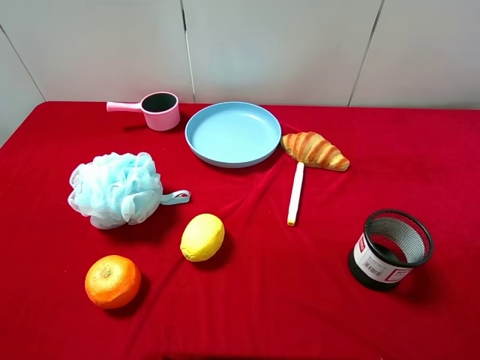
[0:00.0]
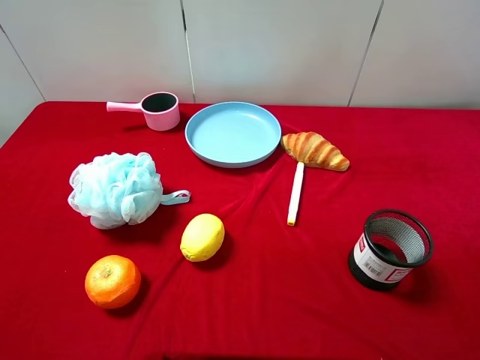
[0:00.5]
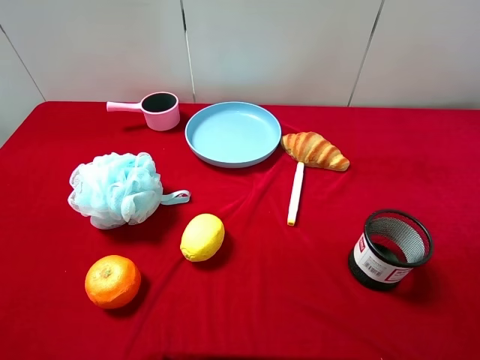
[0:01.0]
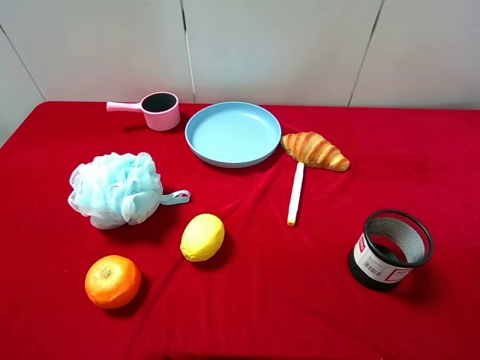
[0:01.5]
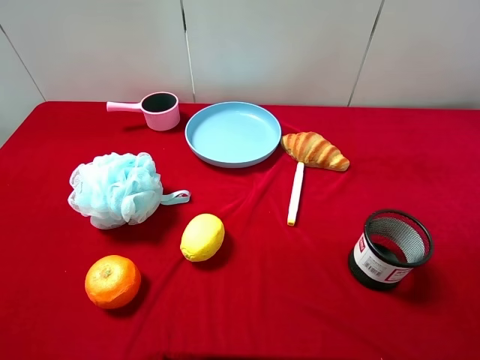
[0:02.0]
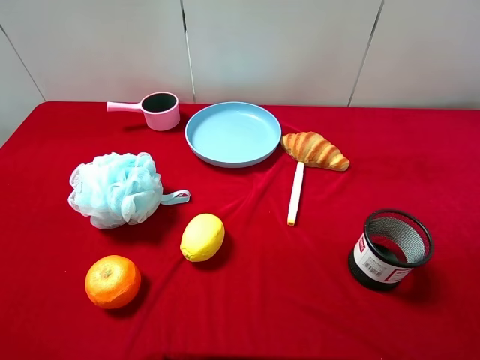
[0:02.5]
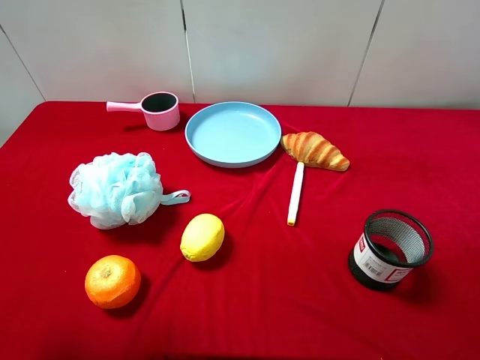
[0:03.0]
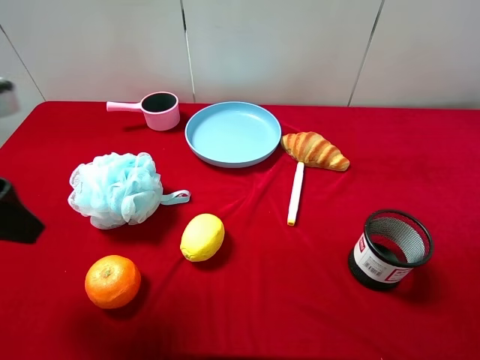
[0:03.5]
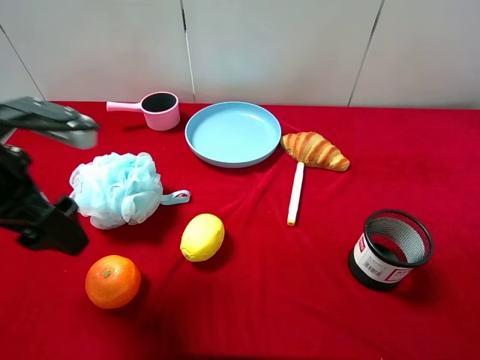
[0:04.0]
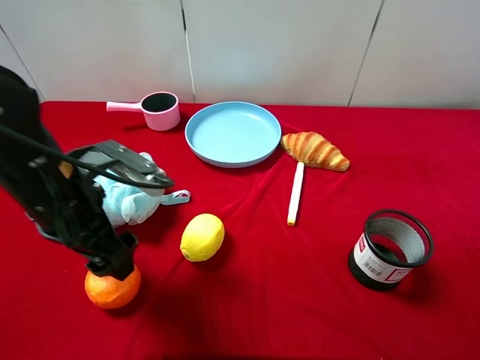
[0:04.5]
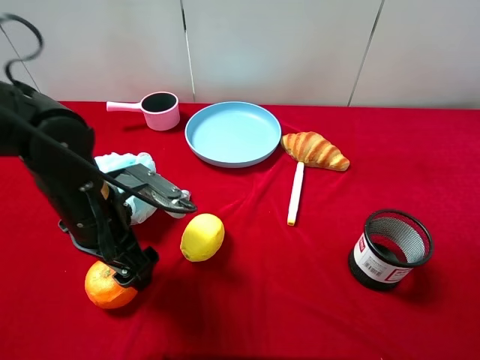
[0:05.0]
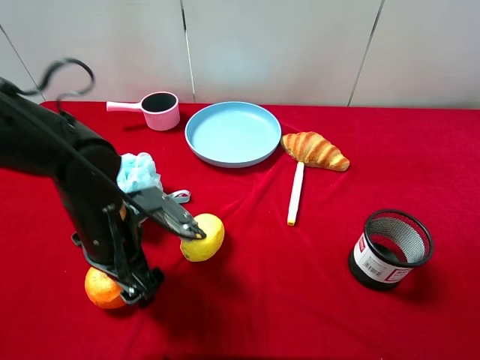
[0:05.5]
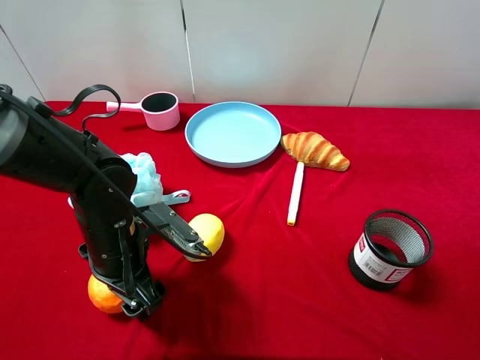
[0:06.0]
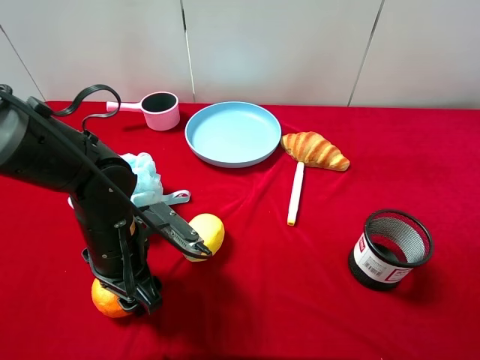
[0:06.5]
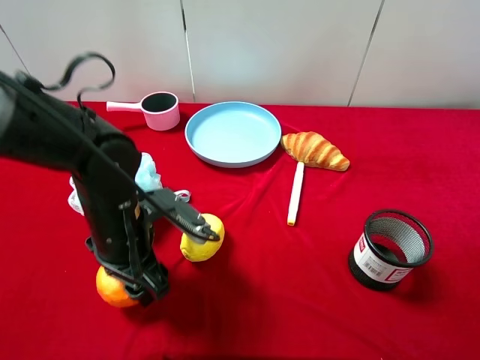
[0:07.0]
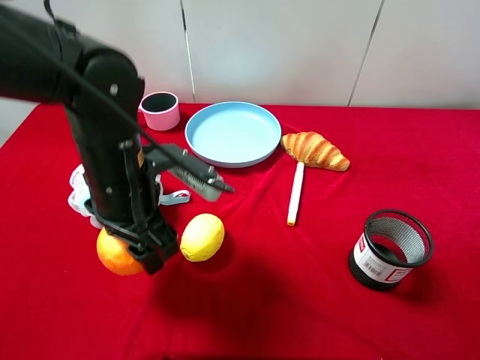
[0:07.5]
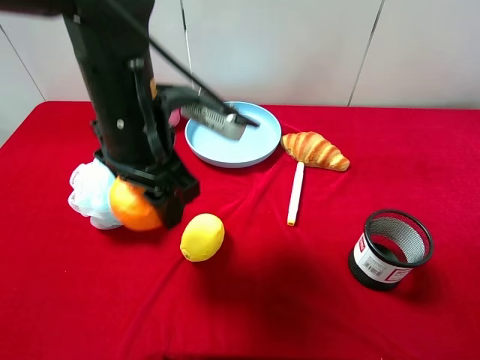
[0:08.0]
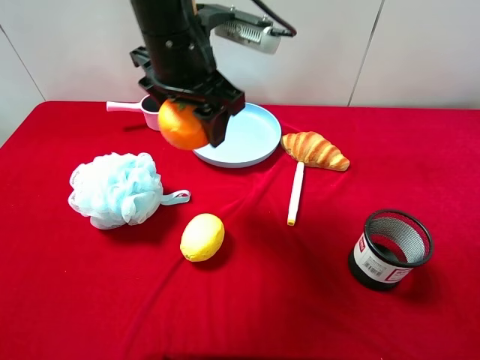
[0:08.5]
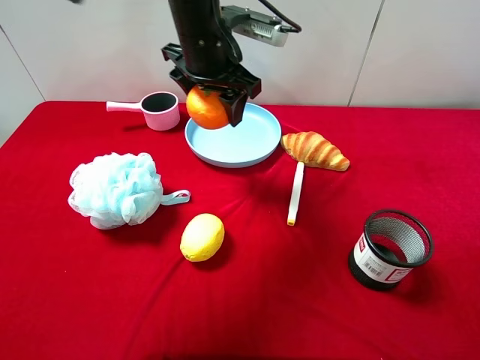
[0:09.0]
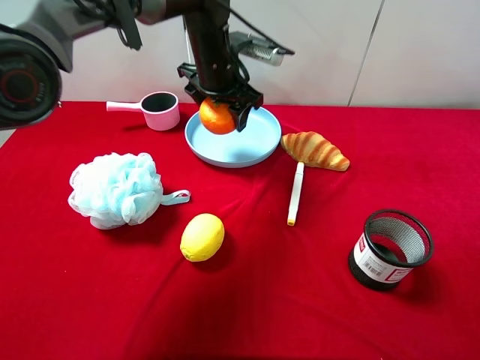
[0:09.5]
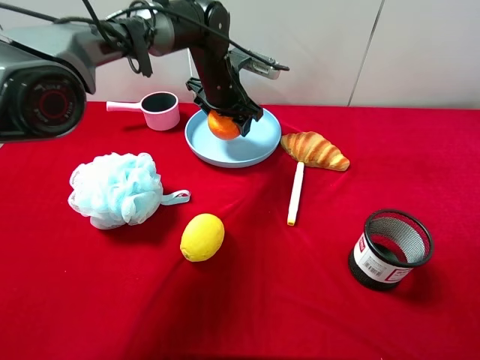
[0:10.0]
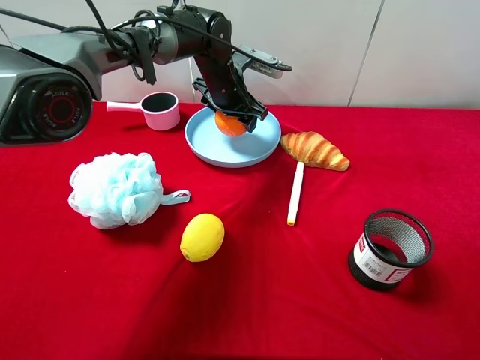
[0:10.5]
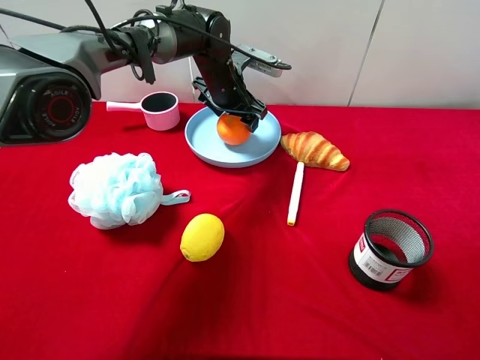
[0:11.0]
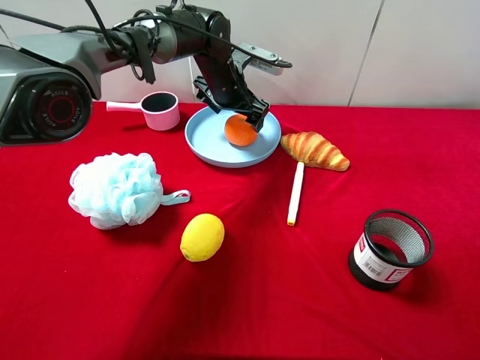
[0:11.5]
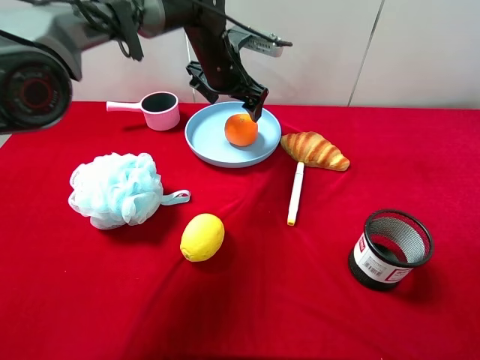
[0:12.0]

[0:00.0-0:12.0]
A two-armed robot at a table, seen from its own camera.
Task of the whole recording: pick up an item with a gripper and place it in a random container on the desktop.
0:00.0 to 0:02.0: Both grippers stay put.
0:02.0 to 0:04.0: The left gripper goes roughly 20 cm forward and to the right.
0:04.0 to 0:06.0: The left gripper heads downward and to the right, covering roughly 15 cm, and closes.
0:06.0 to 0:08.0: The left gripper travels upward by some 15 cm, and closes its fingers.
0:08.0 to 0:10.0: The left gripper goes approximately 25 cm forward and downward.
0:10.0 to 0:12.0: The left gripper opens its fingers.

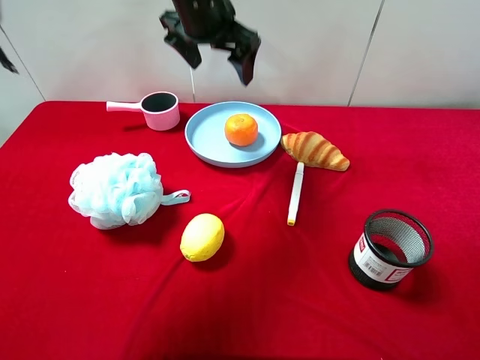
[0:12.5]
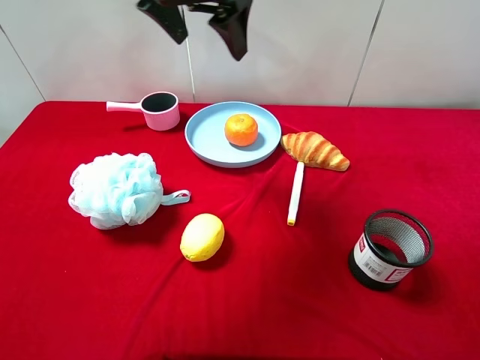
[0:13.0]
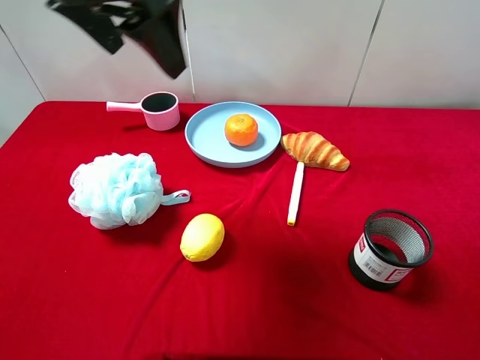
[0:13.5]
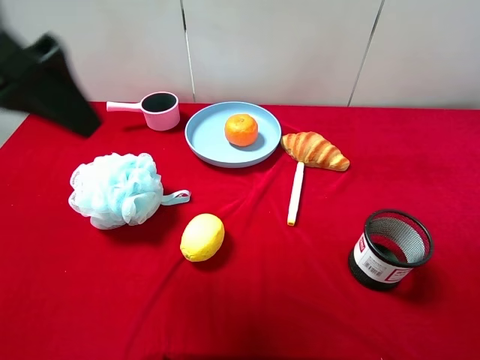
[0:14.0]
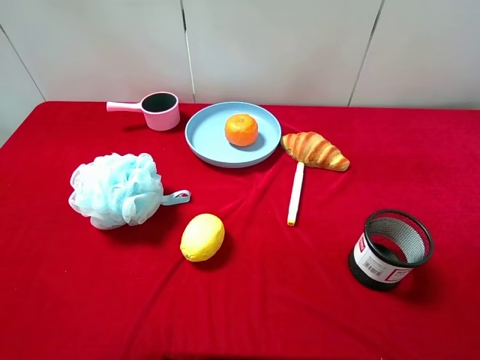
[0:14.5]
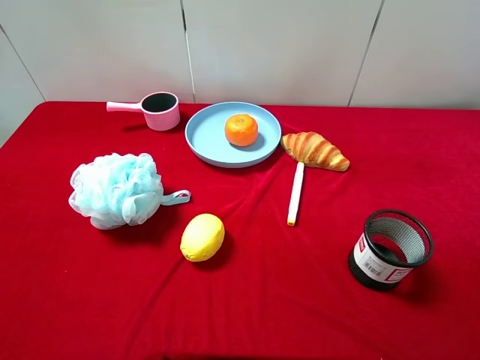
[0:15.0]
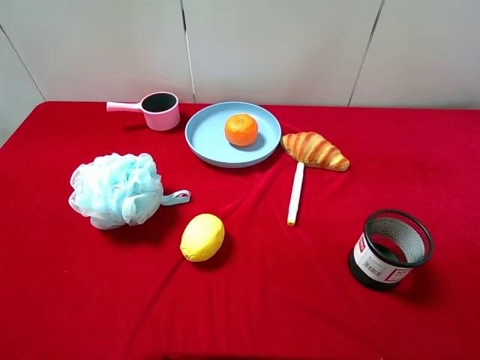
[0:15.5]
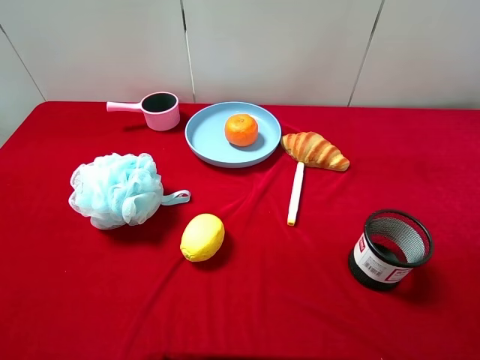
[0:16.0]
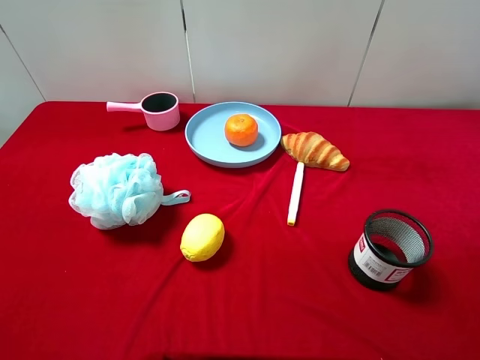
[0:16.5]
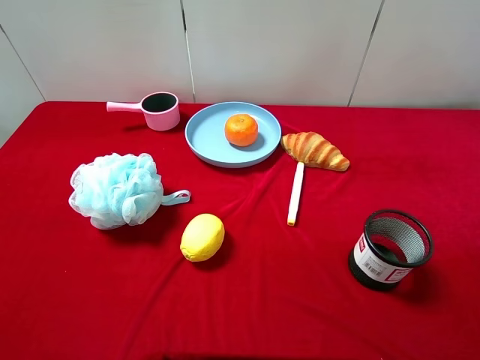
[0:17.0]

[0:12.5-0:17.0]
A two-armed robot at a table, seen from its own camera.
Task of the whole recording: pick up an item with a gripper and place it in a random container on the desktop.
0:12.5 to 0:14.5: The left gripper is displaced backward and to the left by some 40 cm.

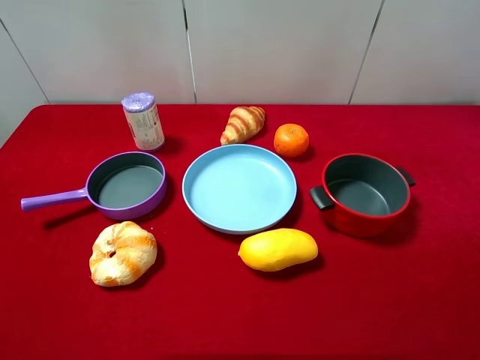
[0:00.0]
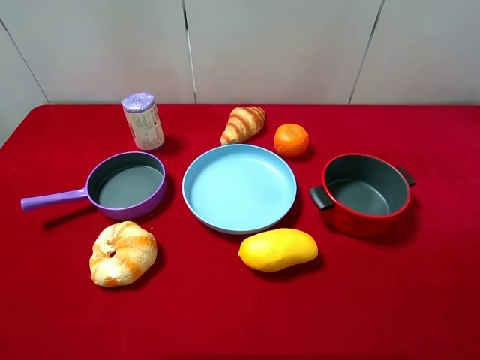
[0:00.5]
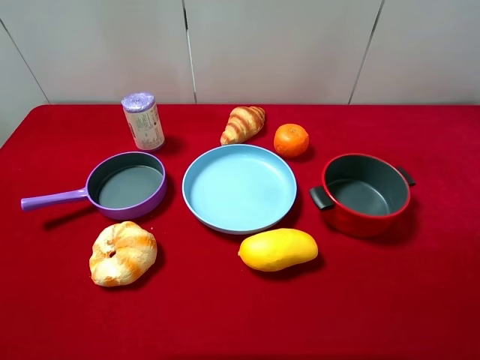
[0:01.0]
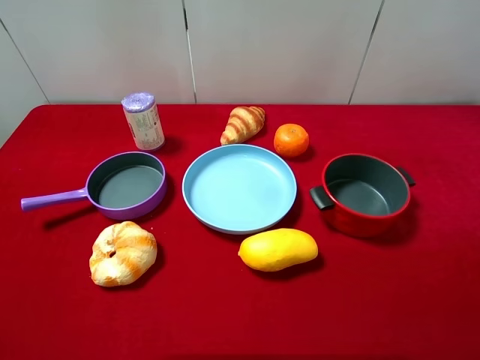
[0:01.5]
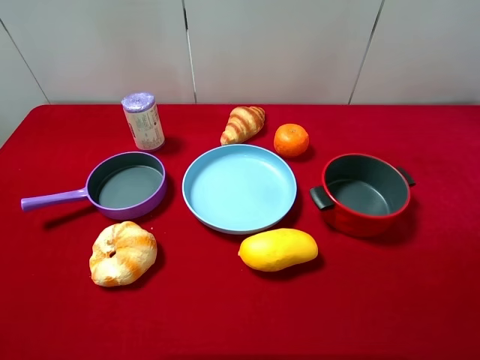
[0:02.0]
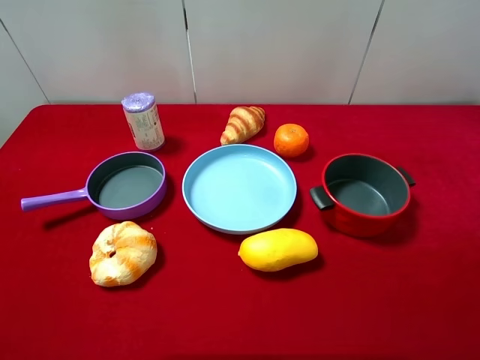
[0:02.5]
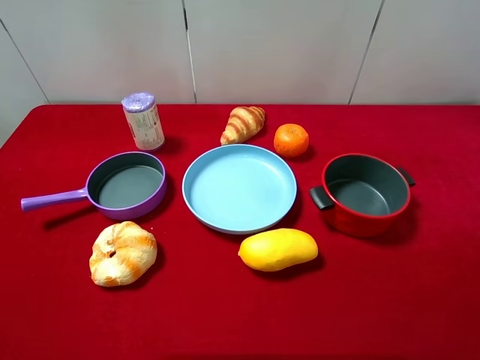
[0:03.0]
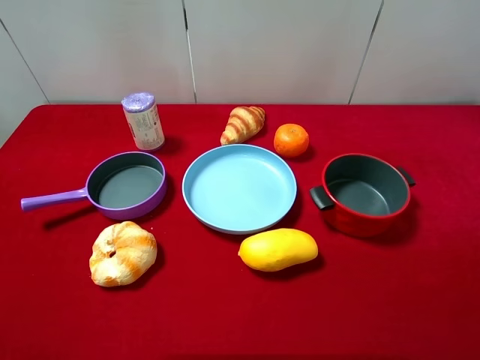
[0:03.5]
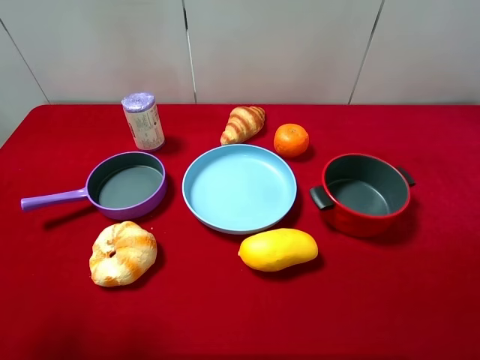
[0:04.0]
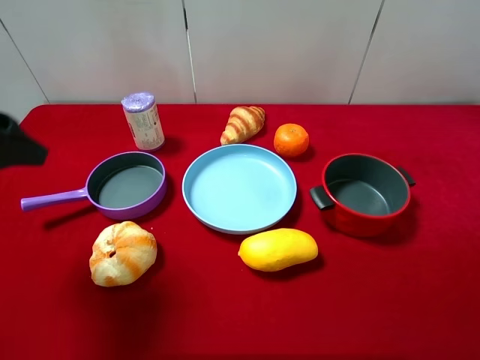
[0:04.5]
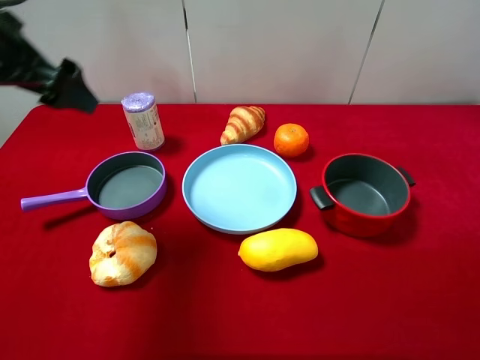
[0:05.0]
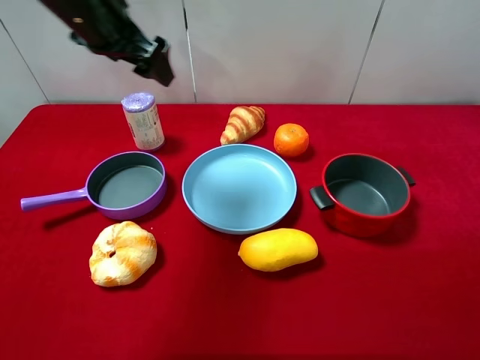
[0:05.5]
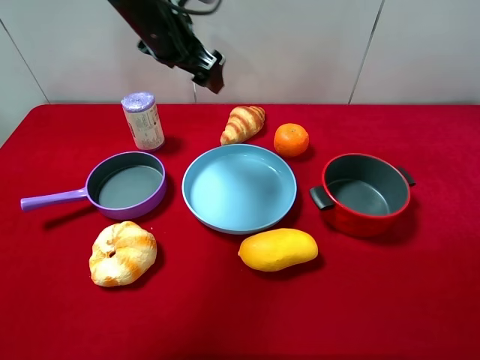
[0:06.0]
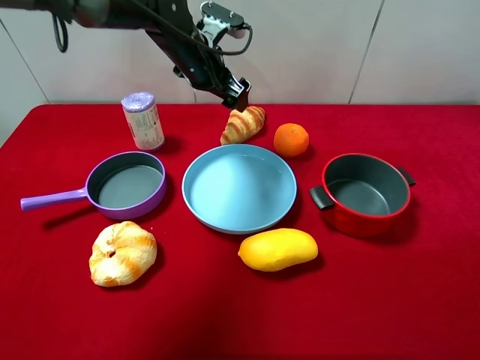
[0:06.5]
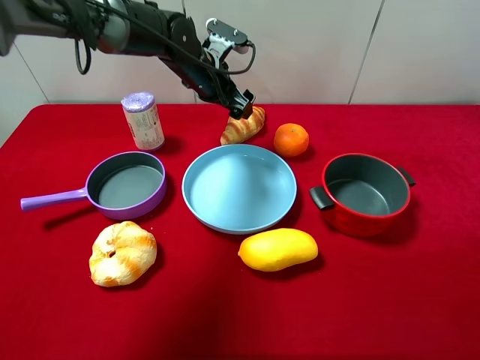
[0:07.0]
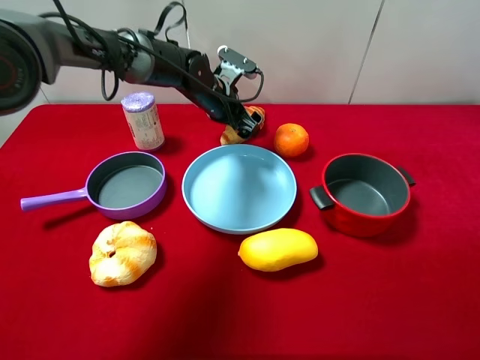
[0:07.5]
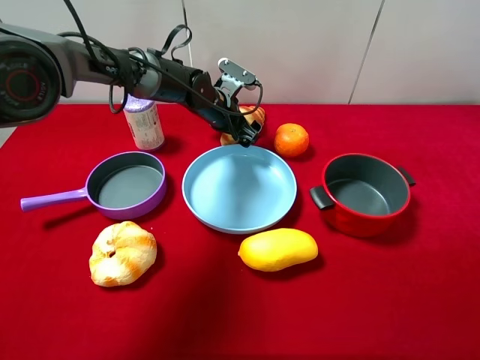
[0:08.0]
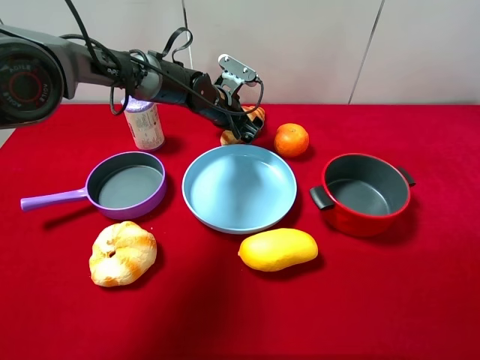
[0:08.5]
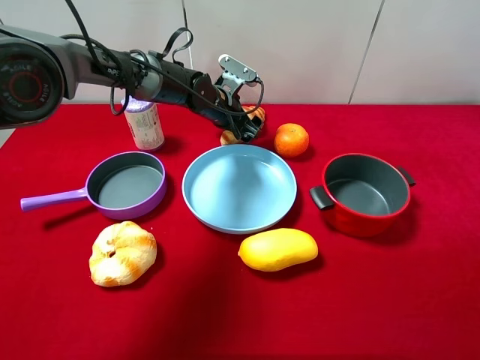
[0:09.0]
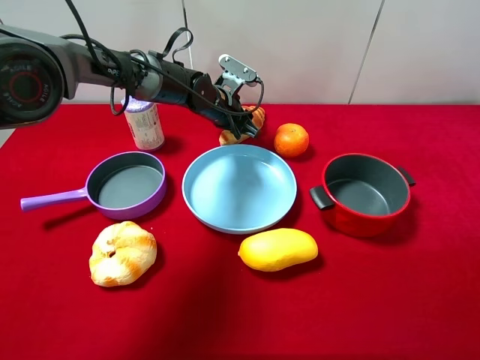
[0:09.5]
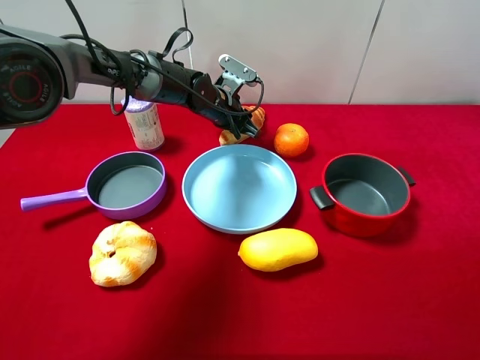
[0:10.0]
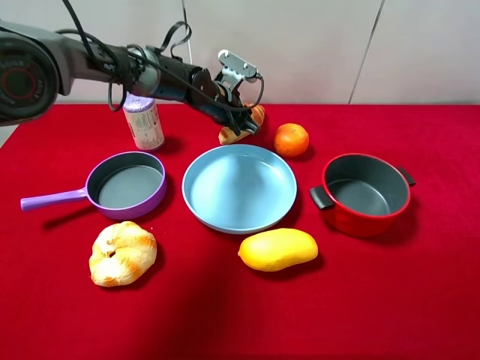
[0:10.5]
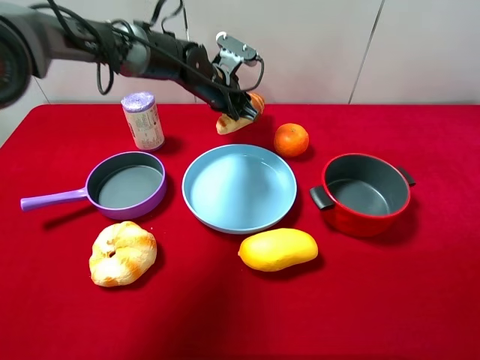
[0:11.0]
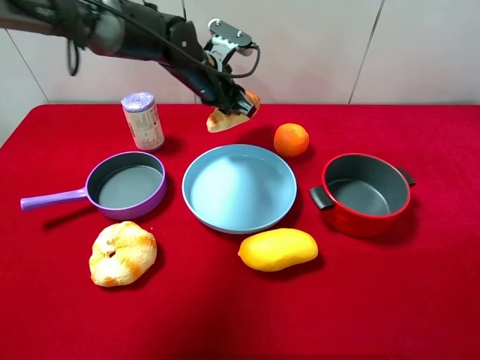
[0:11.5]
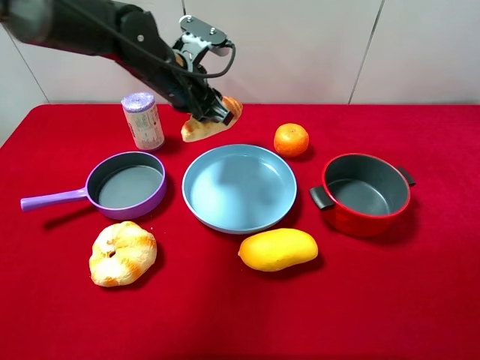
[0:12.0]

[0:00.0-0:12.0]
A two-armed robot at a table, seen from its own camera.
Task of the whole recording: pick up an item with a gripper and place it in a random container on the desktop.
0:00.0 to 0:02.0: Both grippers stay about where they are.
0:04.0 to 0:06.0: The left gripper is displaced forward and to the right by some 35 cm.
0:06.0 to 0:08.0: The left gripper shifts roughly 15 cm downward.
0:08.0 to 0:10.0: The left gripper closes up.
0:10.0 to 0:12.0: The left gripper travels upward, backward and to the left by about 15 cm.
